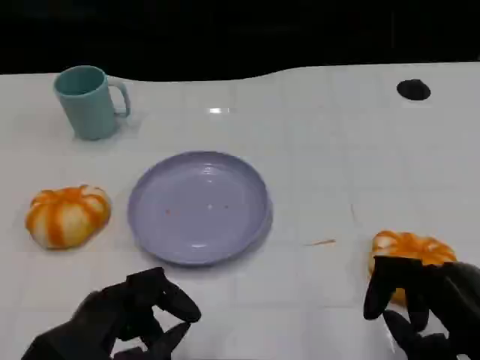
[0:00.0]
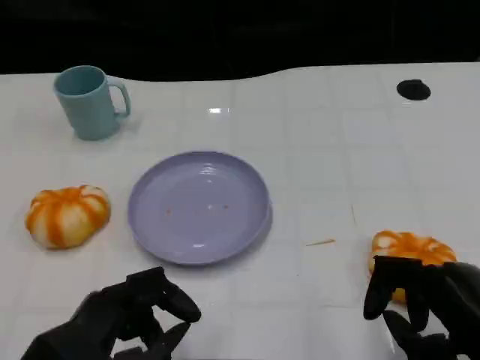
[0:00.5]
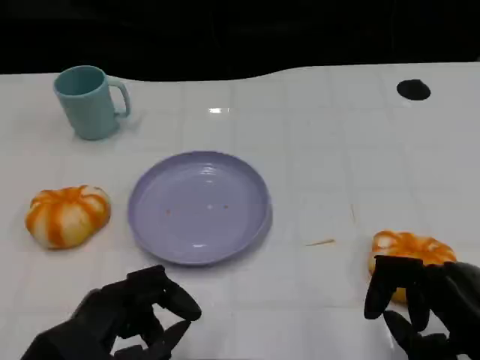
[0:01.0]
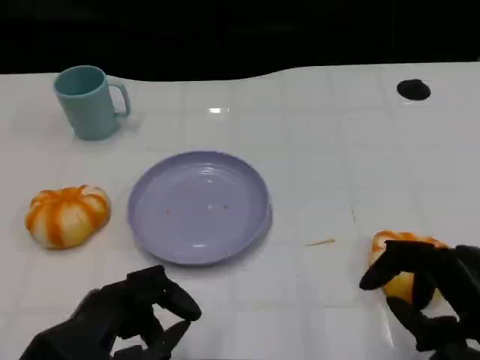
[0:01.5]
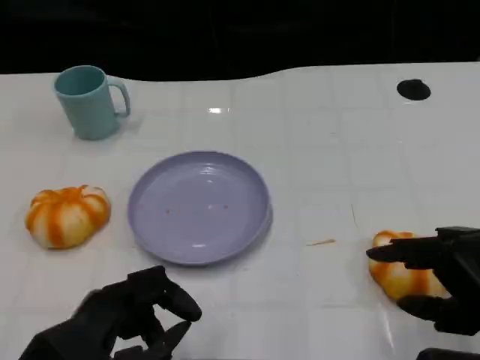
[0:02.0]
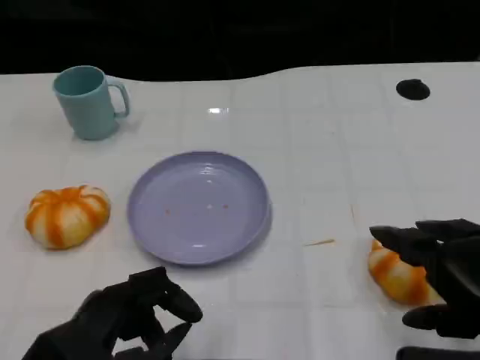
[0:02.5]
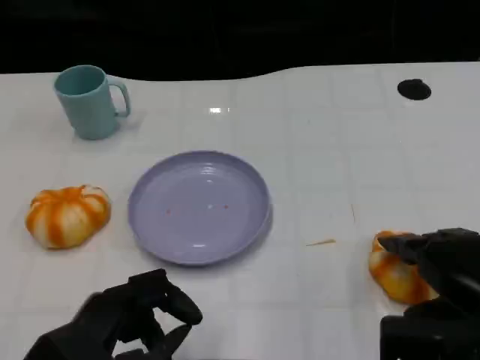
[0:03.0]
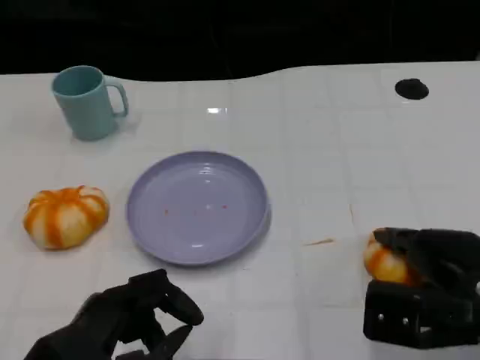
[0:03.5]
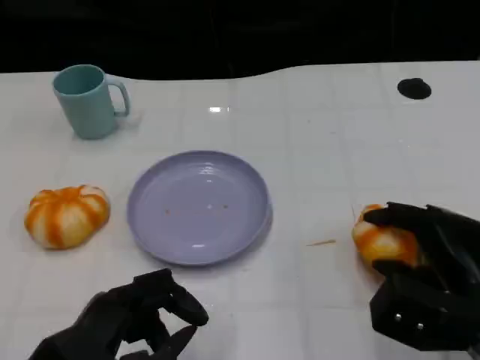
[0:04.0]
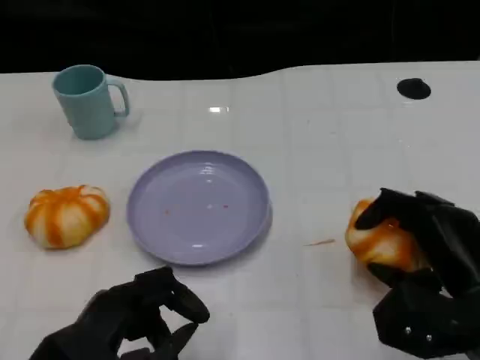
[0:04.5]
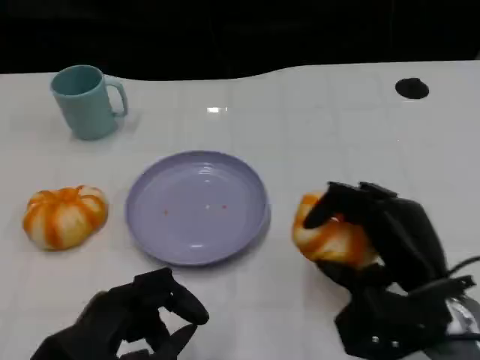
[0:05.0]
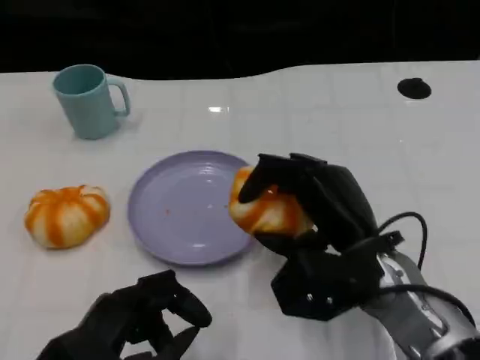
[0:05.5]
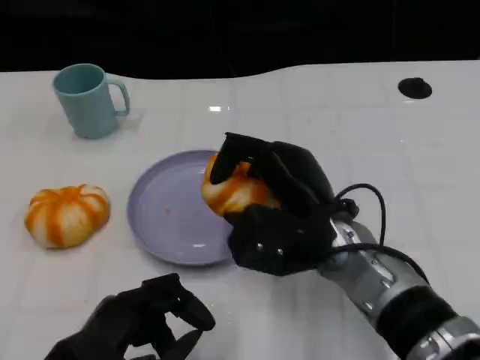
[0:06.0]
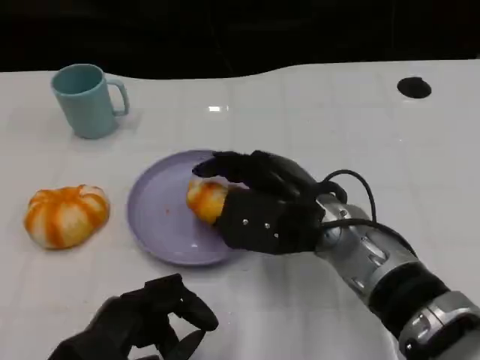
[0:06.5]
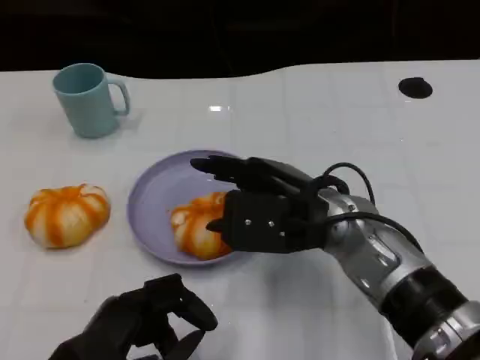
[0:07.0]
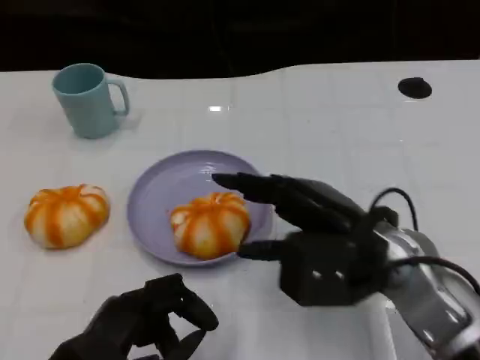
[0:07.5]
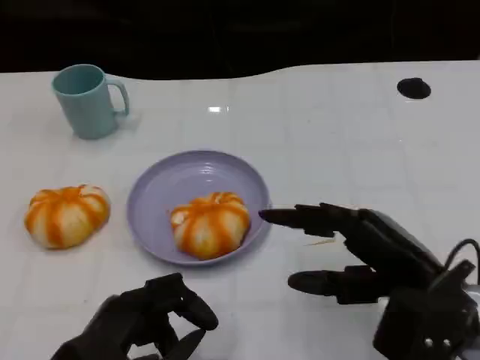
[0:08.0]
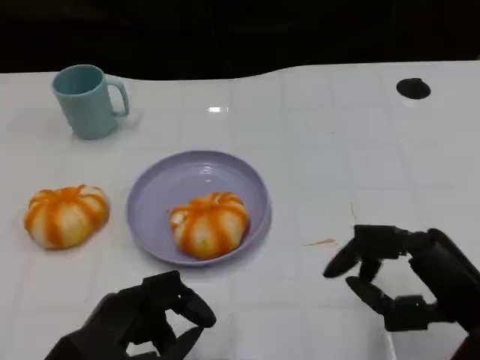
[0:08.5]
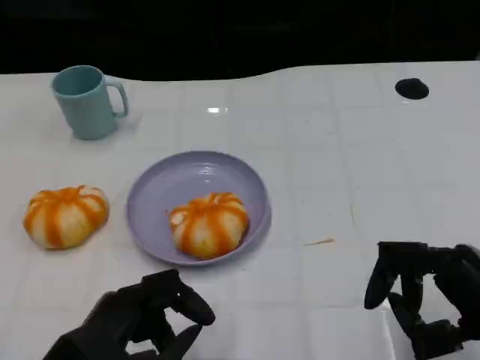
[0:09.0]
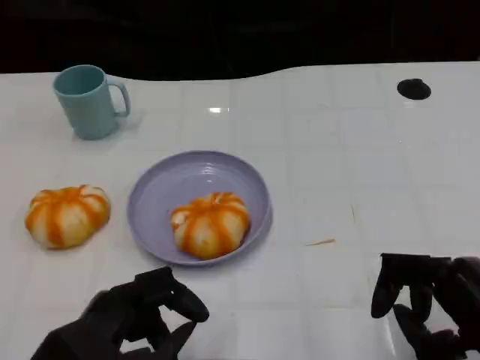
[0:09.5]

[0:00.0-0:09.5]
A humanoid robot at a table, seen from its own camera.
Task of the whole recording: Grasp the bread from the table and place it into the plate.
0:00.0 to 0:02.0: The right hand shifts about 5 cm upward.
0:02.0 to 0:04.0: The right hand heads downward and forward, covering approximately 10 cm.
0:04.0 to 0:05.5: The right hand moves to the left, about 10 cm.
0:07.5 to 0:09.5: The right hand goes roughly 15 cm to the right and backward.

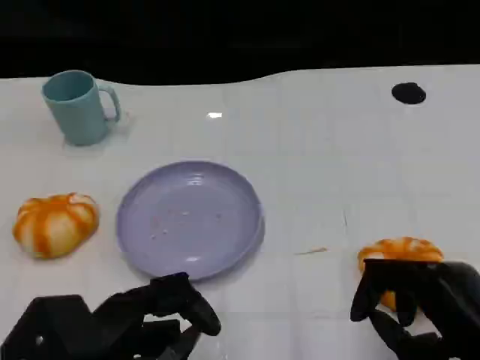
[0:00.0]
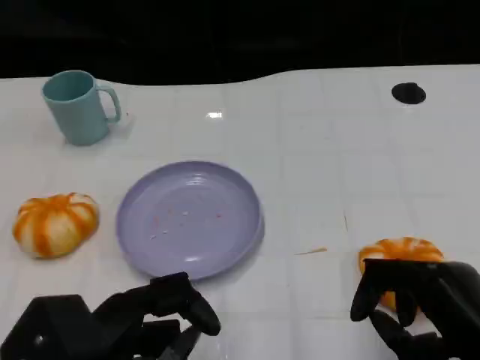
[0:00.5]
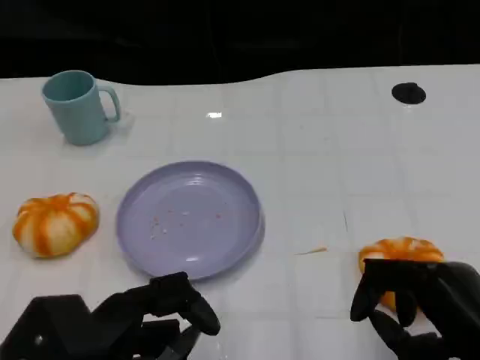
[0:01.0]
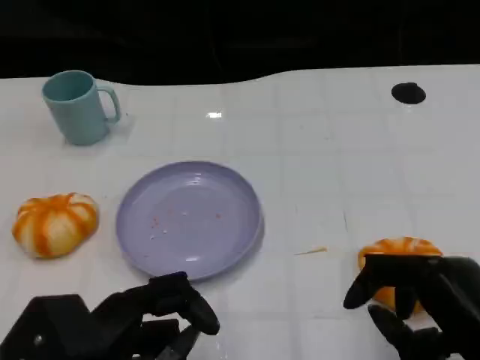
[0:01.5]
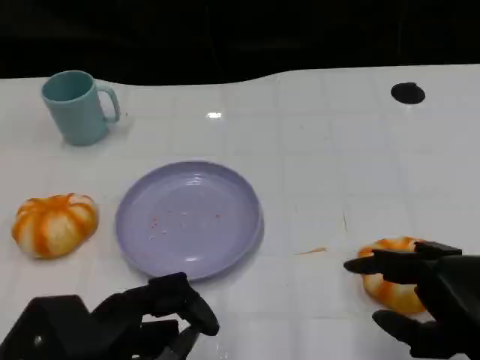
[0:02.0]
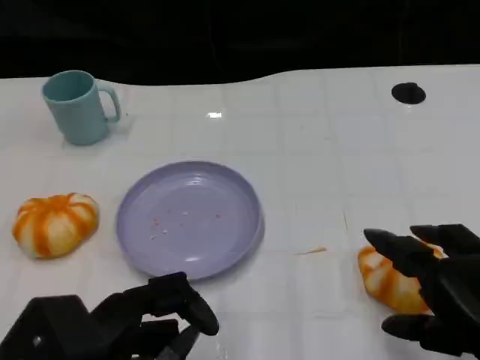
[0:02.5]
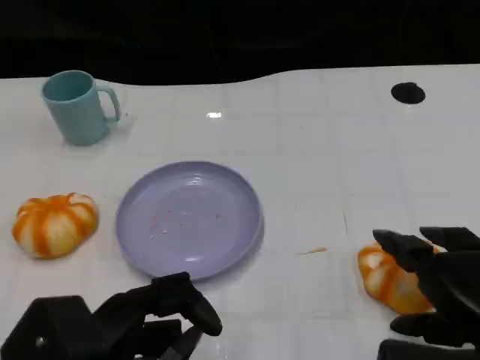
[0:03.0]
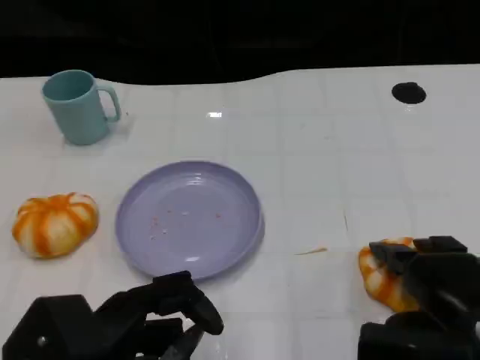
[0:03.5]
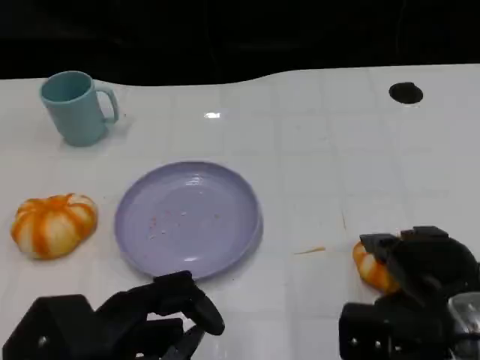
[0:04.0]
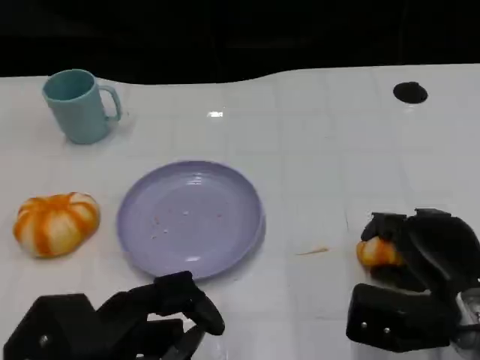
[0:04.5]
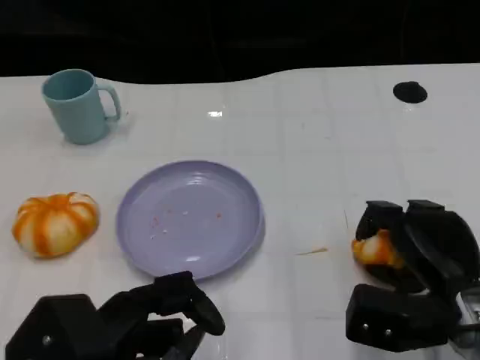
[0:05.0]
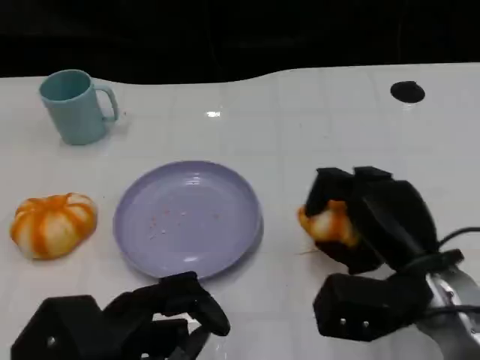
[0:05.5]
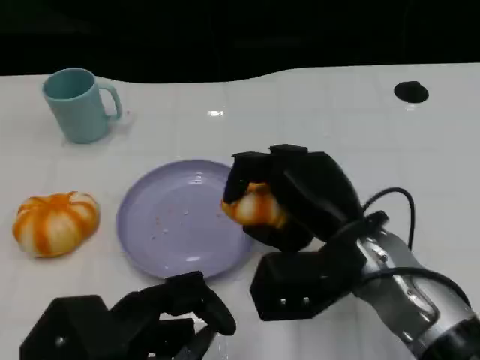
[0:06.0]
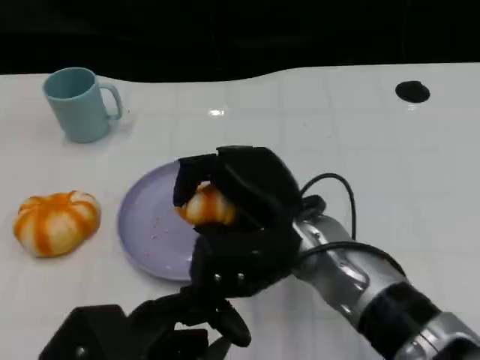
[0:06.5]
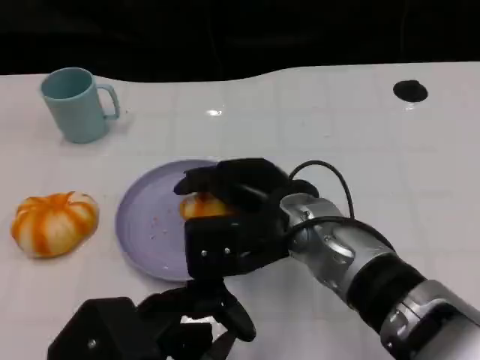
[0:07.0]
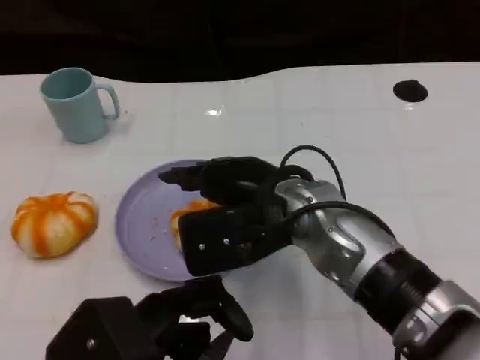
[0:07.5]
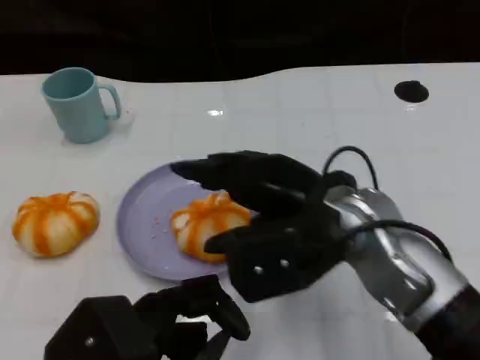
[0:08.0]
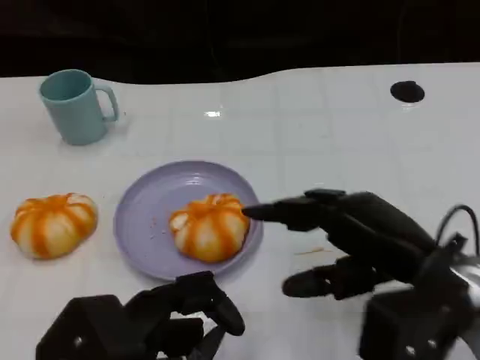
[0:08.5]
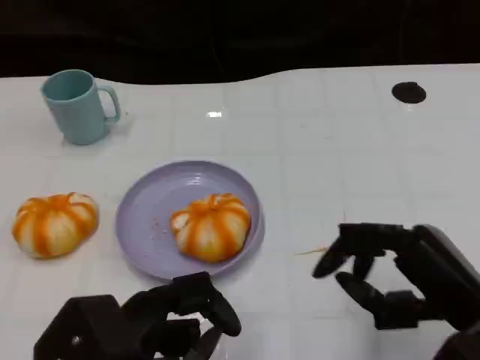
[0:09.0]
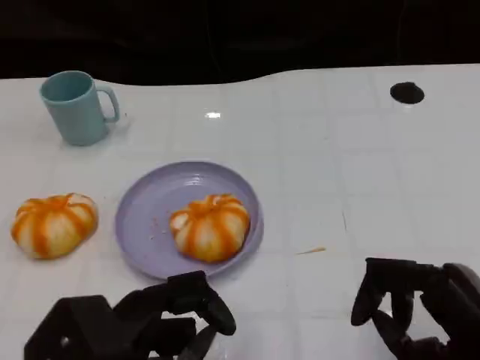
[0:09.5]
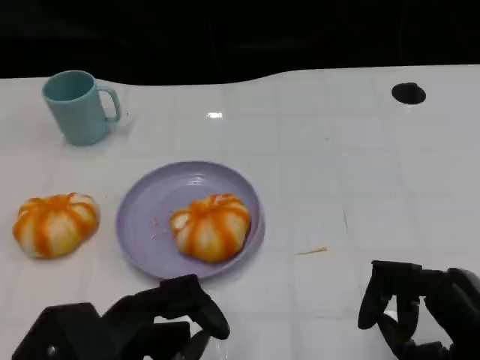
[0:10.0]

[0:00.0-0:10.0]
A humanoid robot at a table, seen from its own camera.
Task of the whole recording: Grasp the bread from the table and place it into the plate.
0:00.0 to 0:02.0: The hands make only small movements.
0:02.0 to 0:04.0: The right hand goes roughly 10 cm forward.
0:04.0 to 0:06.0: The right hand moves to the left, some 10 cm.
0:08.0 to 0:10.0: The right hand travels to the right, backward and downward by approximately 20 cm.

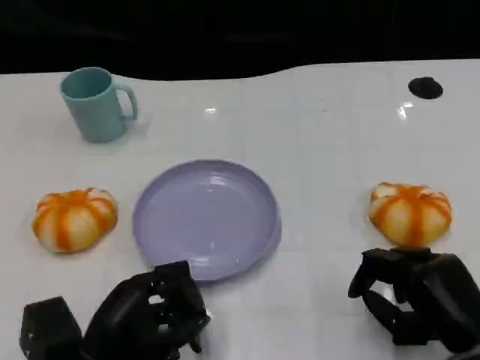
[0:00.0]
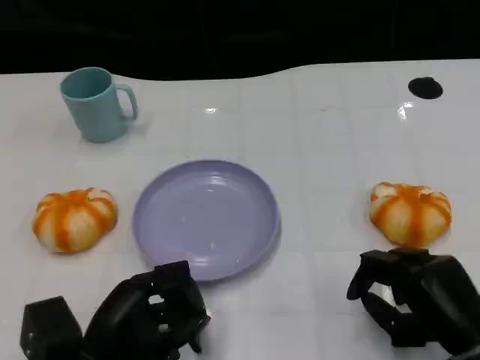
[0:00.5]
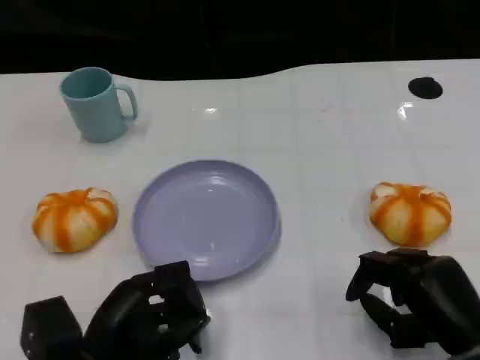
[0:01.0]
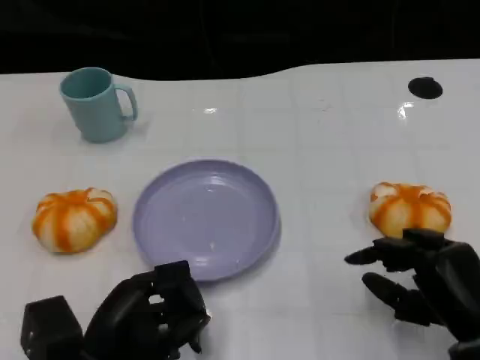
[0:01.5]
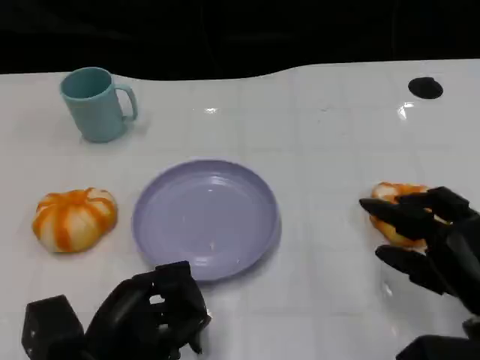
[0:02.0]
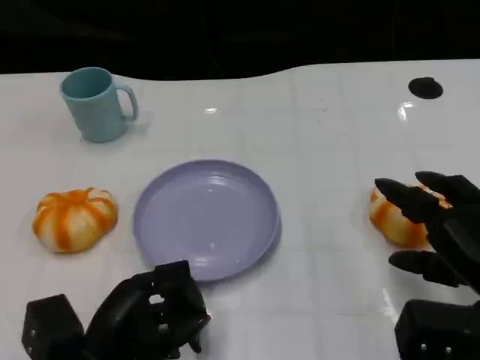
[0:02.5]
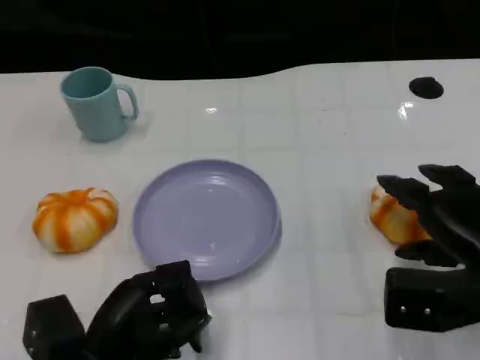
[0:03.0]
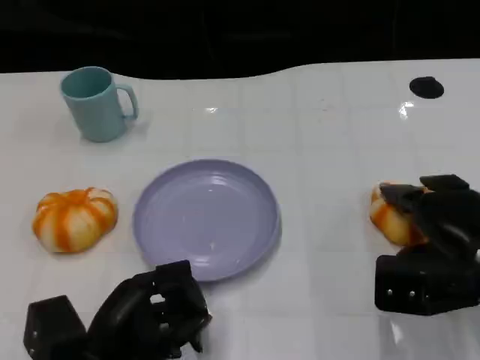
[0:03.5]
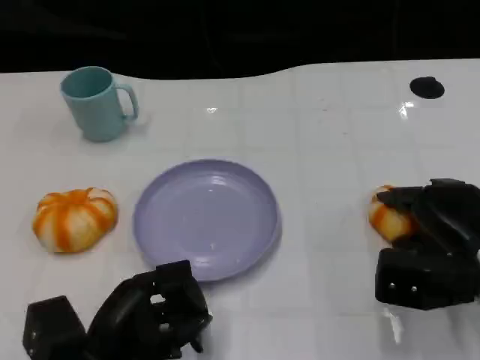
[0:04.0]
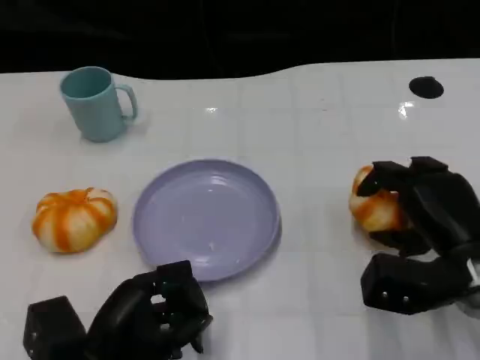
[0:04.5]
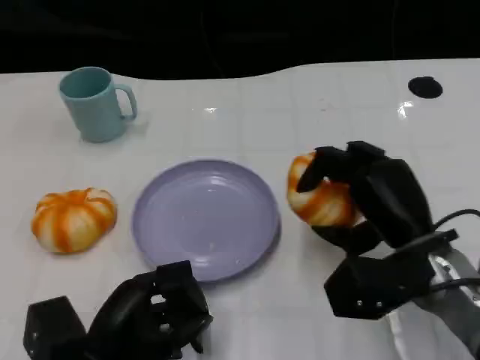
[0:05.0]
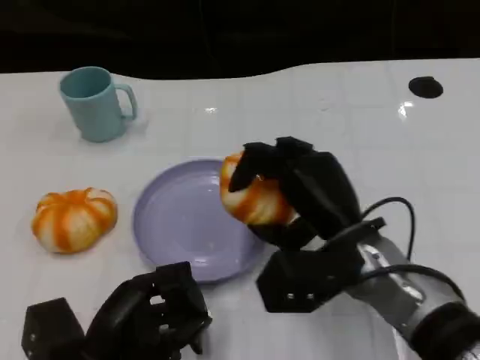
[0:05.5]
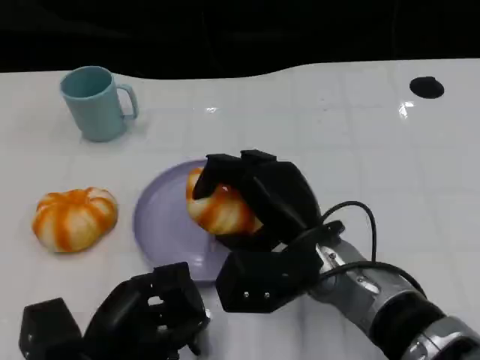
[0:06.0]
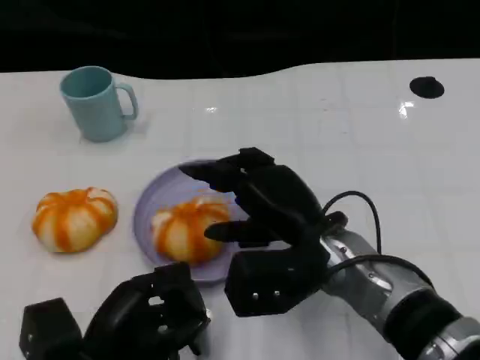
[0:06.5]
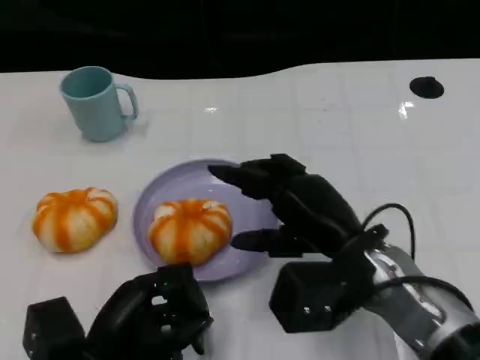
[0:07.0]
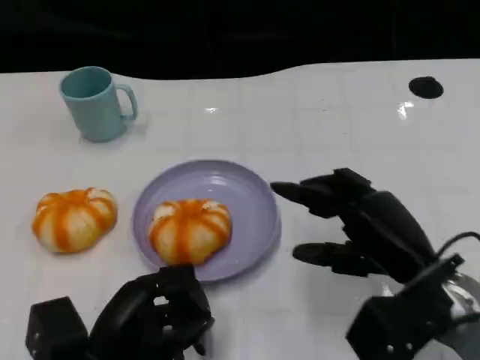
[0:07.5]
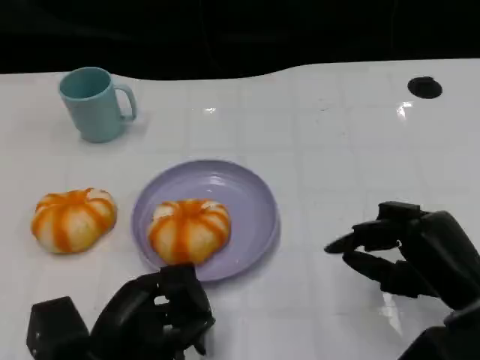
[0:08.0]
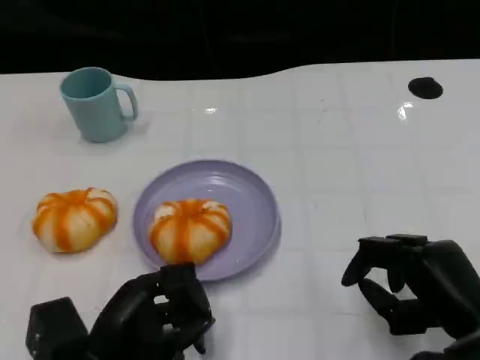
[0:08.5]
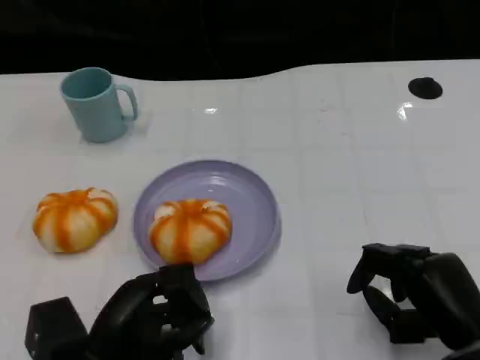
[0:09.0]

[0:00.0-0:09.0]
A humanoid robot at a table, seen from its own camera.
Task of the whole recording: Grasp the bread from the table and place it into the plate.
0:00.0 to 0:02.0: The hands stay close to where they were, moving slightly.
0:02.0 to 0:04.5: The right hand goes some 5 cm forward.
0:04.5 to 0:07.0: The right hand goes roughly 10 cm to the left.
0:07.0 to 0:09.0: The right hand moves to the right, backward and downward, roughly 15 cm.
